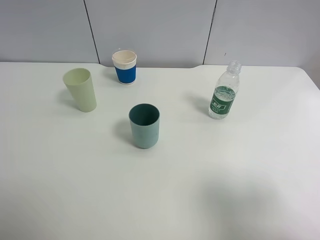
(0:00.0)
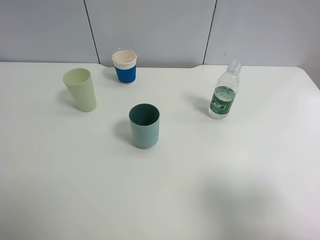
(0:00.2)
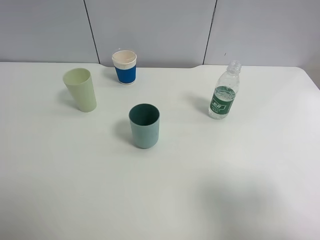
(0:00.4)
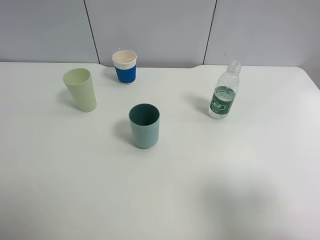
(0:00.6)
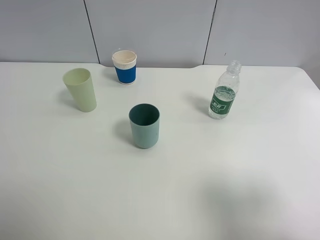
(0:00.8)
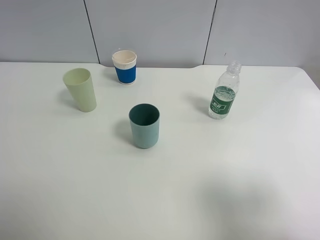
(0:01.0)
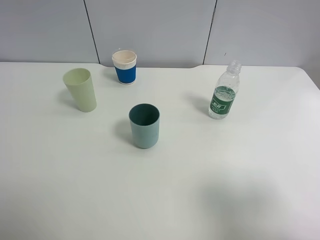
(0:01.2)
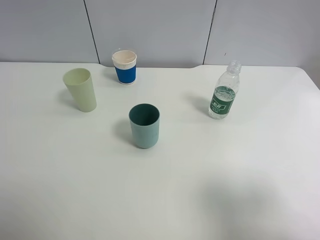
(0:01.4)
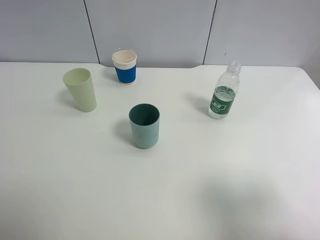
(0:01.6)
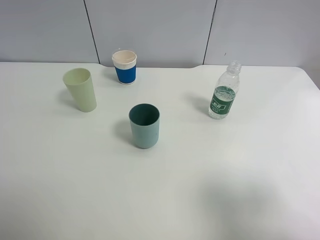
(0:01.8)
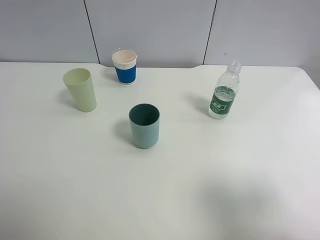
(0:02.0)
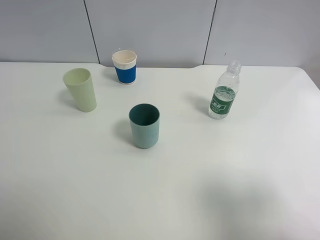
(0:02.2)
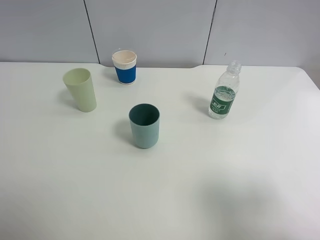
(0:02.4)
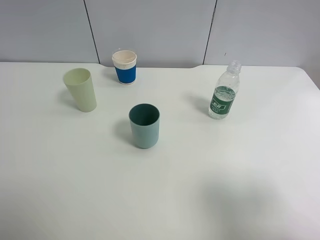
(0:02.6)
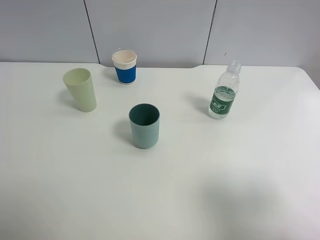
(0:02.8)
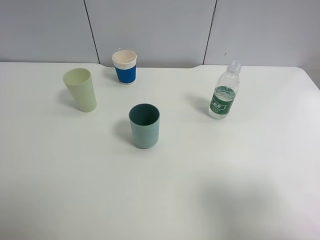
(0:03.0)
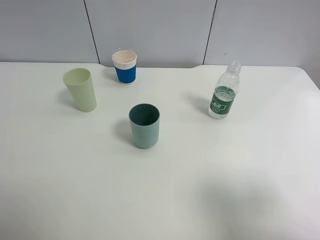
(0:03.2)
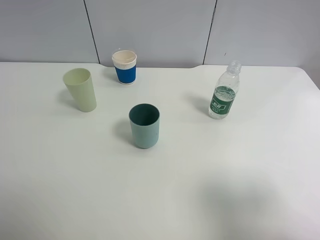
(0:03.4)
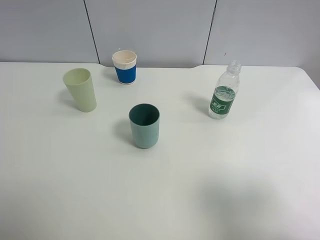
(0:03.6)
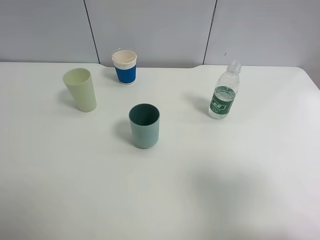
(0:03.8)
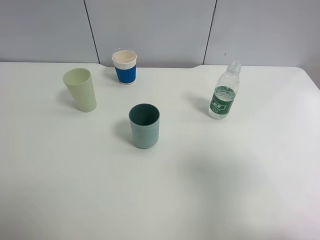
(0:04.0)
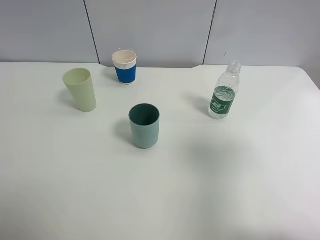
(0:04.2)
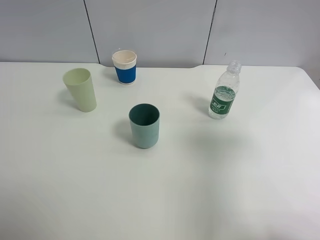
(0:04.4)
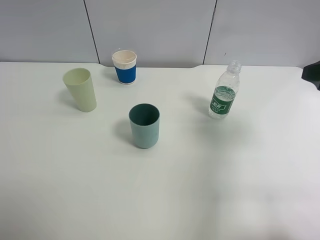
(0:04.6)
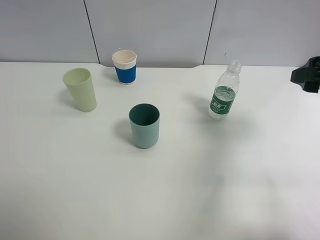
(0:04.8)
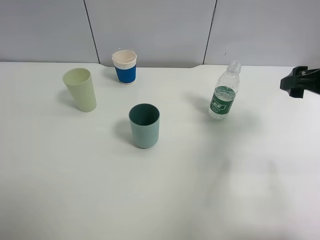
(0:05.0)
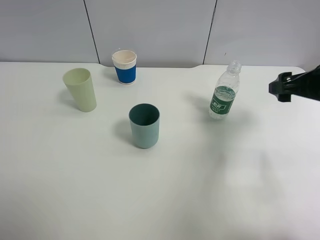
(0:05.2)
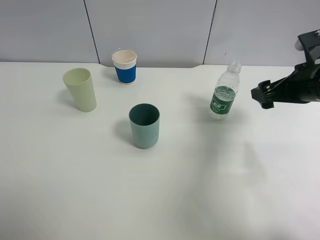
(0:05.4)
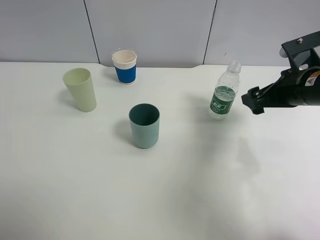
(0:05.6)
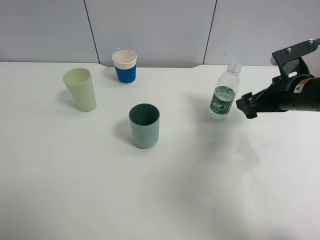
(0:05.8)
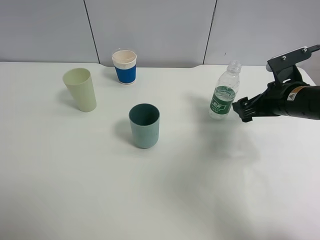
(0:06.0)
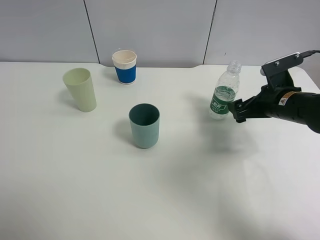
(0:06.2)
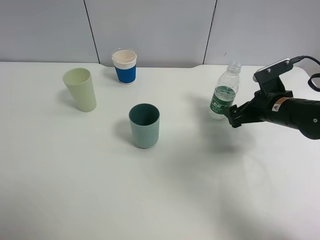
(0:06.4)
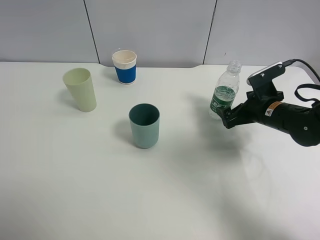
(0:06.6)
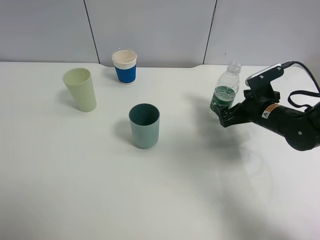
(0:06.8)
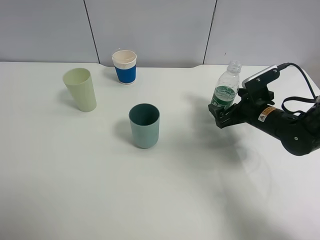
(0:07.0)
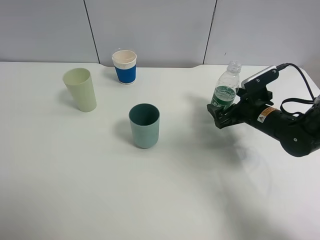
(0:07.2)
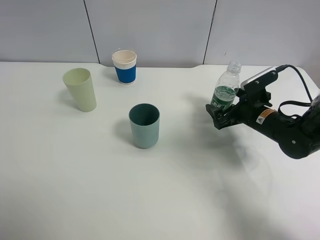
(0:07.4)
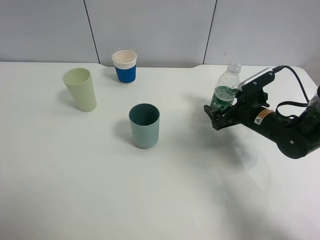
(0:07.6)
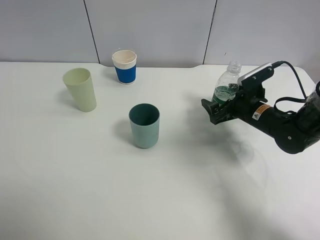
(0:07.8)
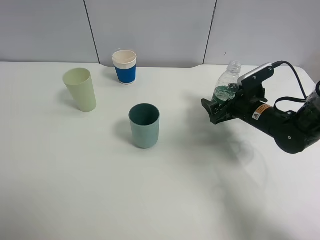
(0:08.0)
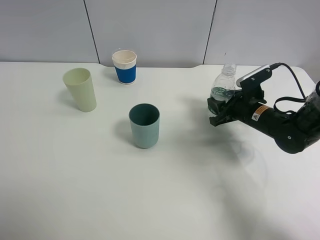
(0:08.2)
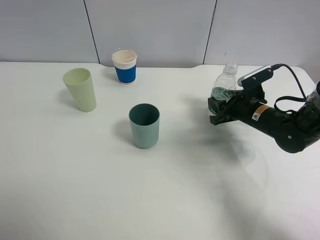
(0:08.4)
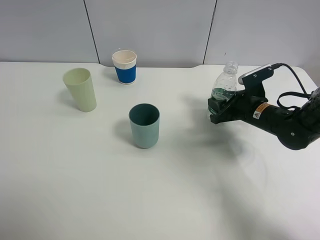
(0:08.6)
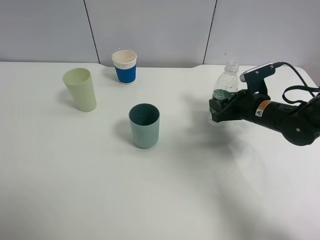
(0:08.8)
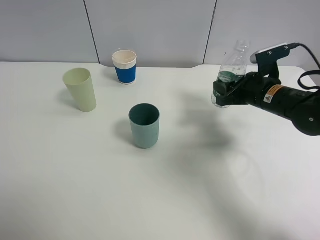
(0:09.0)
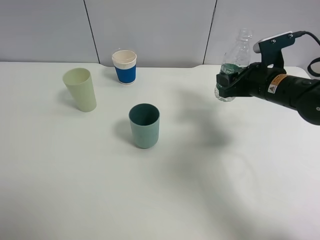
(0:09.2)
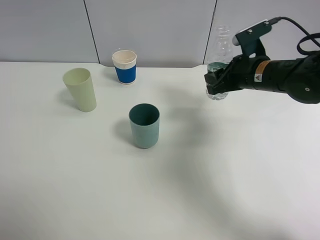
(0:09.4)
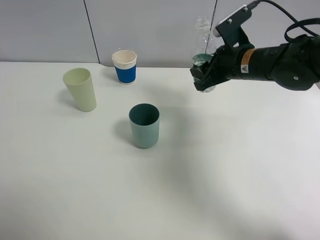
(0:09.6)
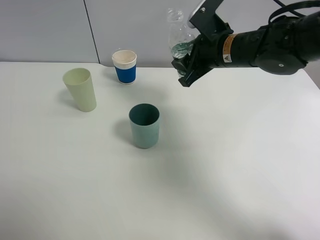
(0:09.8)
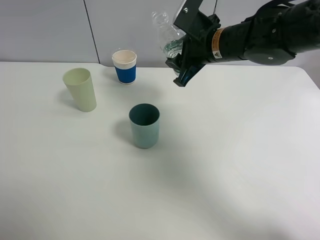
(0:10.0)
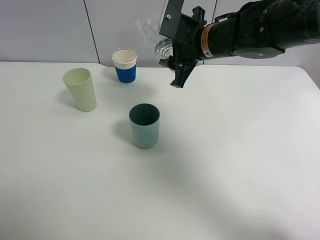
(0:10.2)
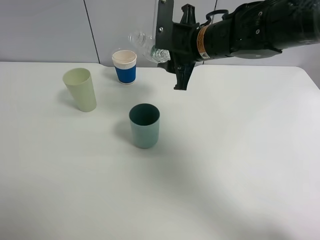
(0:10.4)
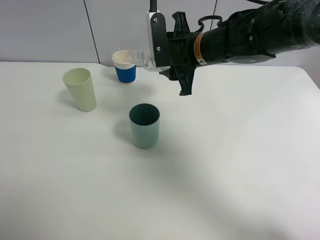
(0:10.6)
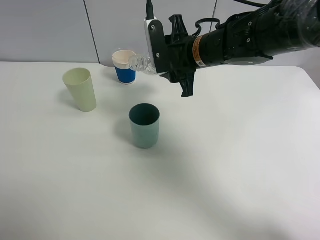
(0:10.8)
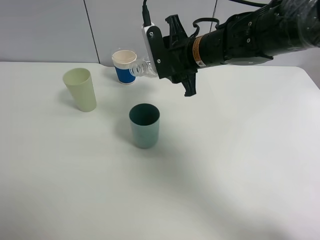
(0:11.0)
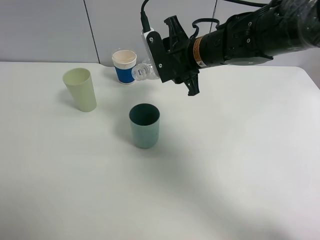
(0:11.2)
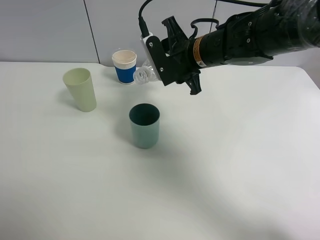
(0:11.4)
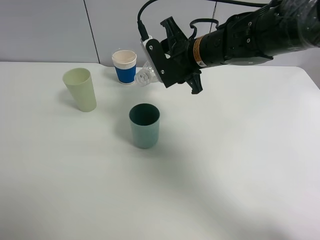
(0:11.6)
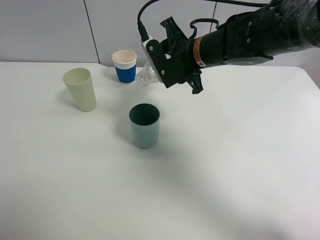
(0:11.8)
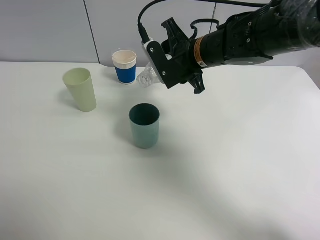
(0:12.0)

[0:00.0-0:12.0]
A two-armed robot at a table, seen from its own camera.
Task of the whole recording: use a clamp to hold the bottle of the drink, pour the beverage into a random cup, then clamp the cup containing the drink and pour the drink into another random cup.
Step, 0:00.0 to 0:09.4: Pick up the water bottle with right gripper.
0:00.0 to 0:03.0: Both grippers stay put.
0:03.0 to 0:04.4: The right gripper shifts about 15 cm forward.
0:04.4 to 0:06.0: The right gripper moves downward and forward, roughly 20 cm.
0:06.0 to 0:07.6: The right gripper is displaced downward by some 5 cm.
0:07.6 to 0:09.0: The right gripper goes about 5 cm upward, and closes its fingers.
0:09.0 to 0:10.4: The right gripper moves to the left and upward, approximately 15 cm.

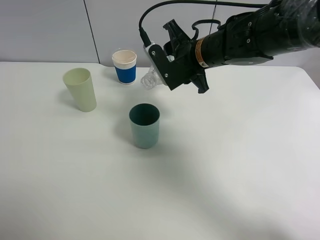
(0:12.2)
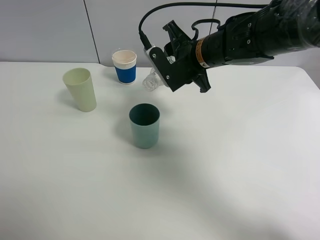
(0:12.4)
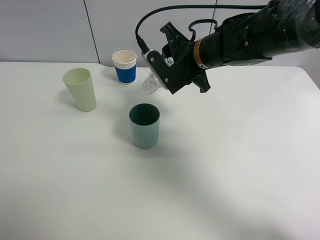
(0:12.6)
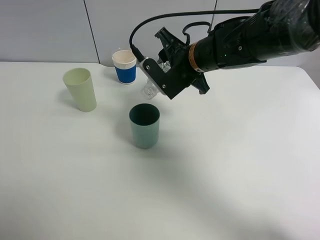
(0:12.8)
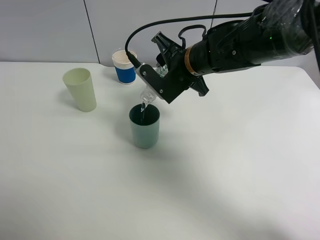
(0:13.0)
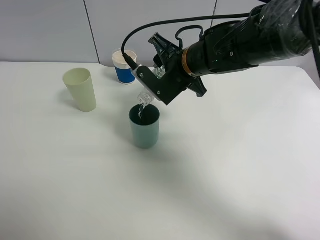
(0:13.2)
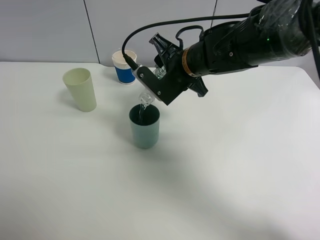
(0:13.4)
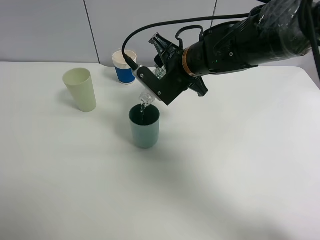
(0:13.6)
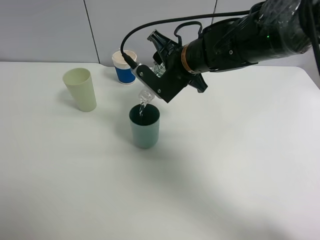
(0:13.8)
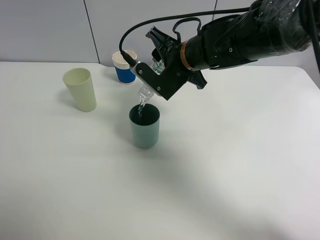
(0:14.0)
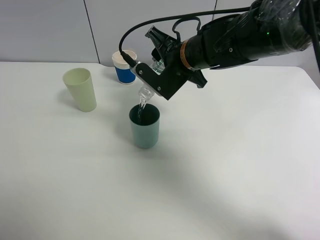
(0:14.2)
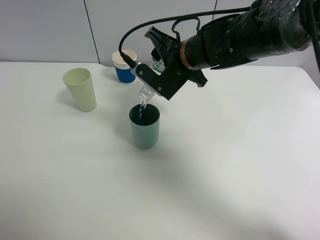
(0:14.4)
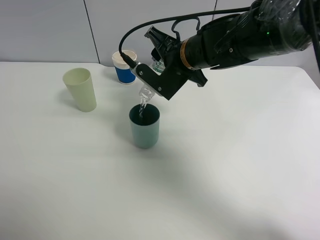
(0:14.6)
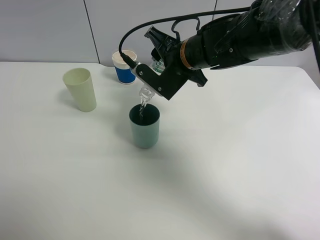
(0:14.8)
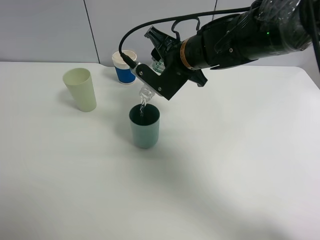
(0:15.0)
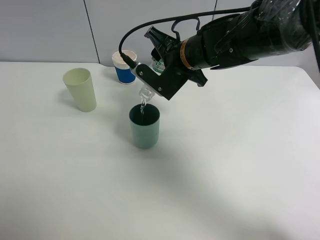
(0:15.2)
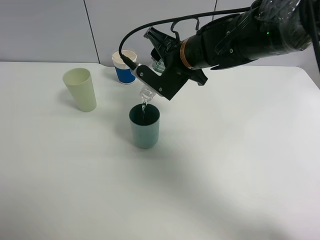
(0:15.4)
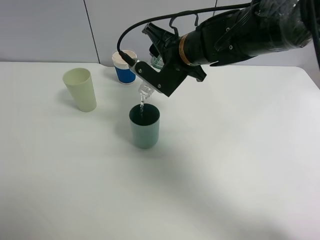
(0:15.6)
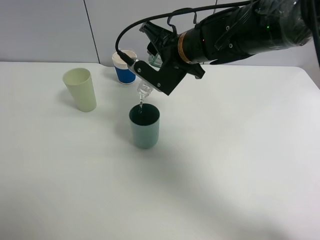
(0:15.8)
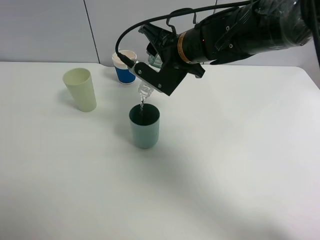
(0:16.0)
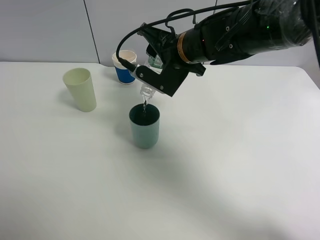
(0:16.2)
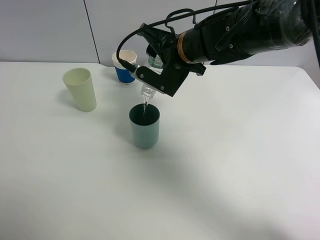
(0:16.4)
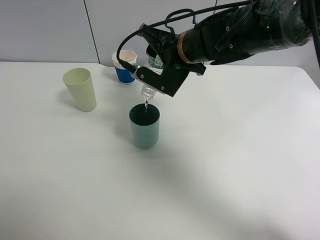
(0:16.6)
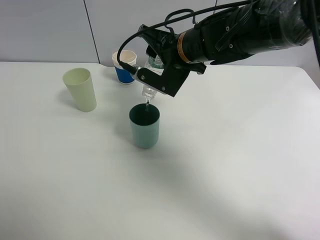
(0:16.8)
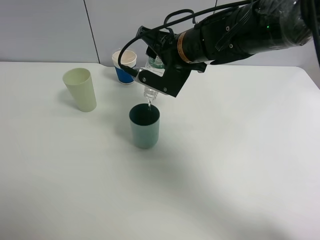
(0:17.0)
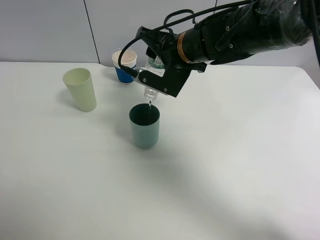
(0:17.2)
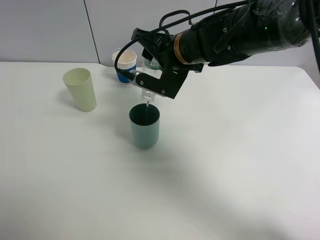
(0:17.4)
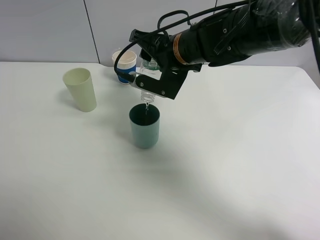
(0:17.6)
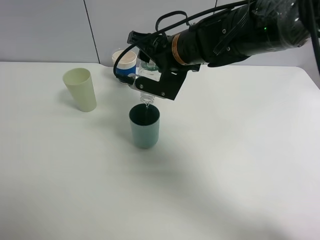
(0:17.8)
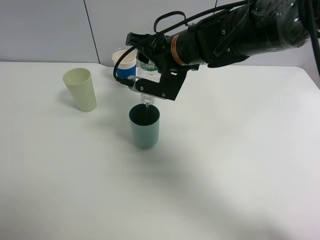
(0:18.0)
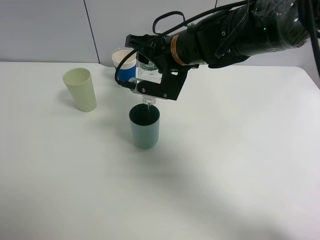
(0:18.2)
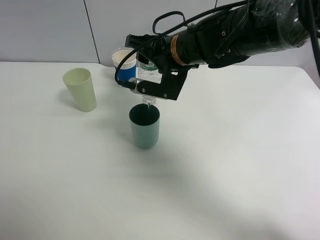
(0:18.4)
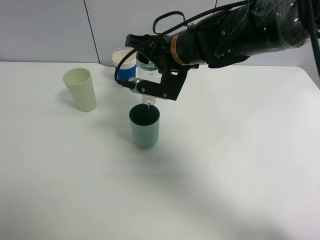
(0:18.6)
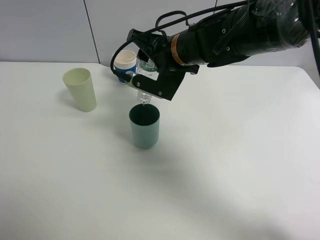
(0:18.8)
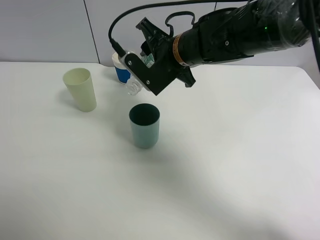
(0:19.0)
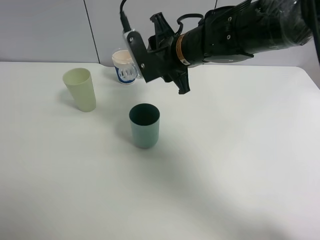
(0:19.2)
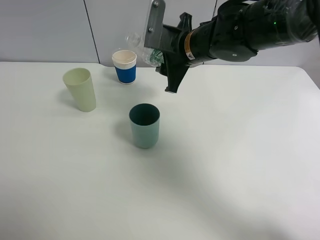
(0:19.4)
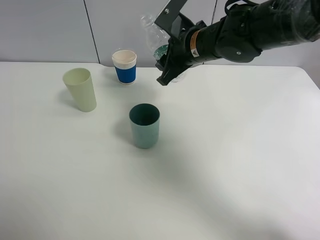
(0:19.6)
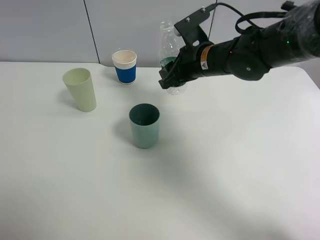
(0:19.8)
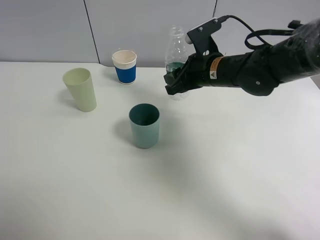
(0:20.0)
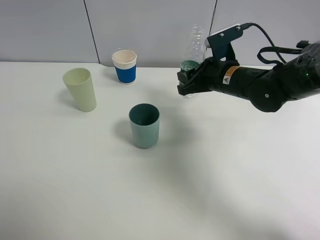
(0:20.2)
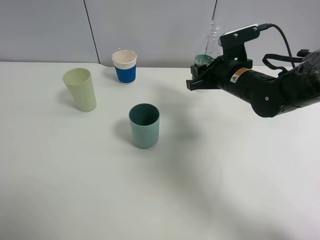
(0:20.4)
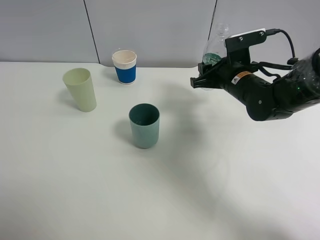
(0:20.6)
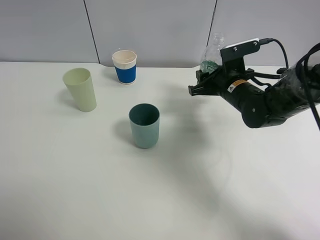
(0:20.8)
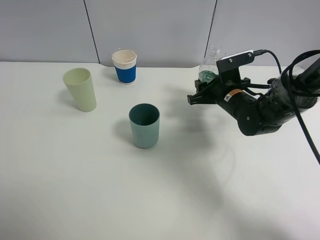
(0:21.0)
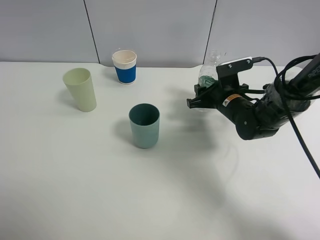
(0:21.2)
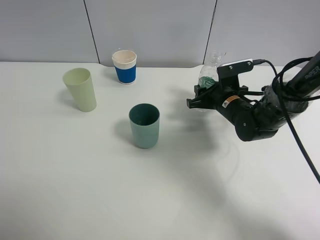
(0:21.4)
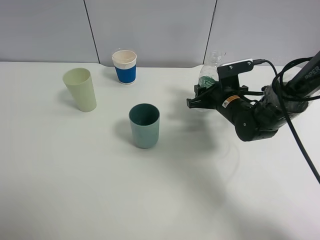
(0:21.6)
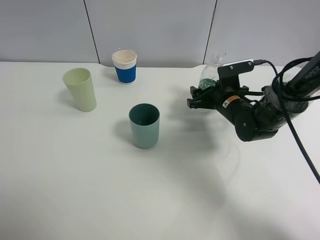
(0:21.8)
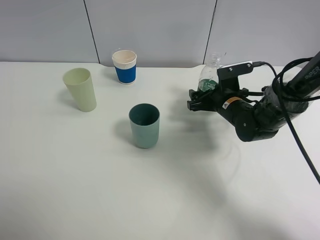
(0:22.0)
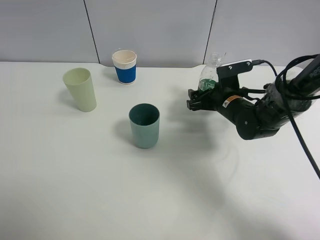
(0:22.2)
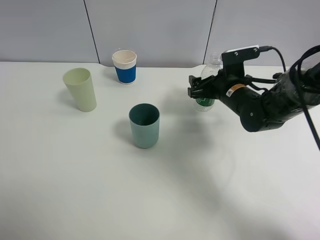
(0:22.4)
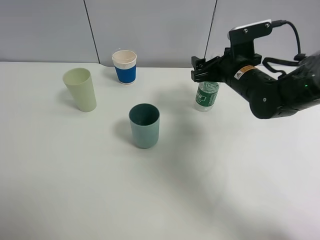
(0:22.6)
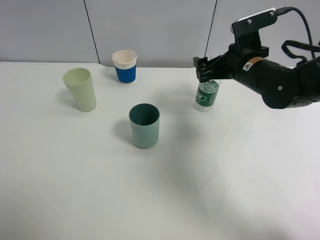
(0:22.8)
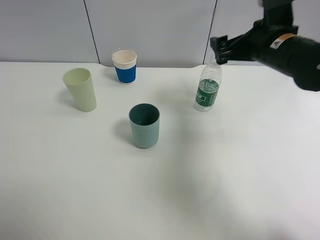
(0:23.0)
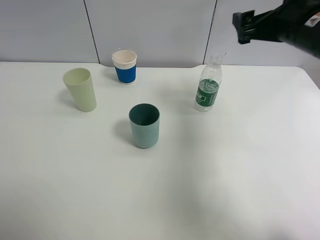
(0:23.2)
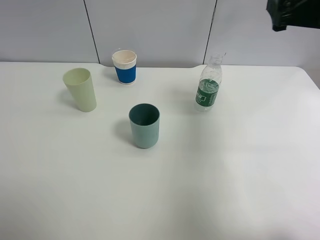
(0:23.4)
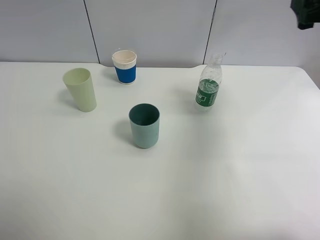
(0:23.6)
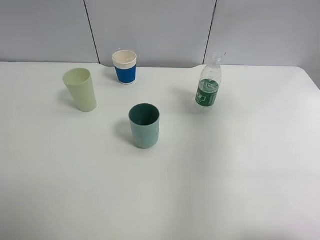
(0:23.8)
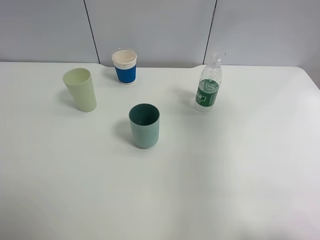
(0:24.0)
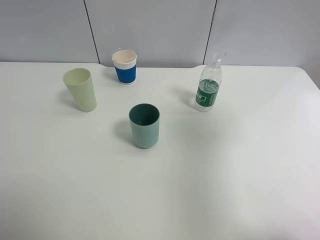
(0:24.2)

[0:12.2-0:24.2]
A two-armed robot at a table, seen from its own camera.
Task of the whole recording: use a clamp to hold the bottle of the drink, pour the beverage into a random cup, then clamp the cup containing the drink and pour the drink into another random cup.
Step, 0:12.2 to 0:19.0: Pour water into the blue plastic cup with right gripper.
Step, 0:19.2 to 0:22.4: Place the water bottle on the table with right gripper.
0:12.2 to 0:13.8: The grippers move only a little.
0:13.8 to 0:15.2: Neither gripper changes place.
0:15.2 to 0:16.6: The grippers move only a little.
0:16.6 to 0:18.2: The grippers stay close to where they were, moving slightly.
0:18.2 to 0:19.8: The right gripper heads to the right, covering roughly 5 cm.
0:19.8 to 0:21.2: The right gripper travels downward and to the right by roughly 10 cm.
0:21.2 to 0:22.6: The right gripper heads upward, covering approximately 10 cm, and opens.
0:22.6 to 0:24.2: The right gripper goes some 30 cm upward, backward and to the right.
